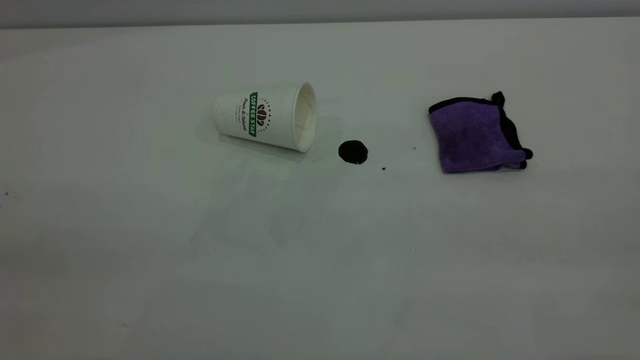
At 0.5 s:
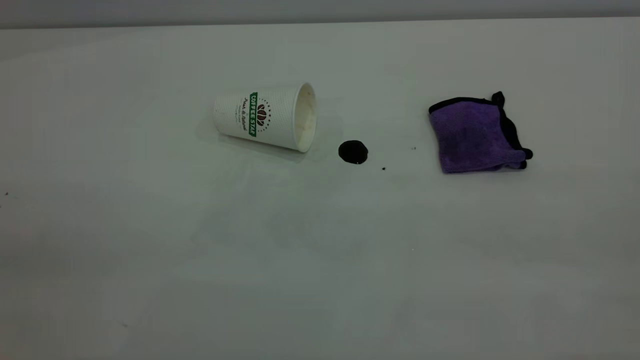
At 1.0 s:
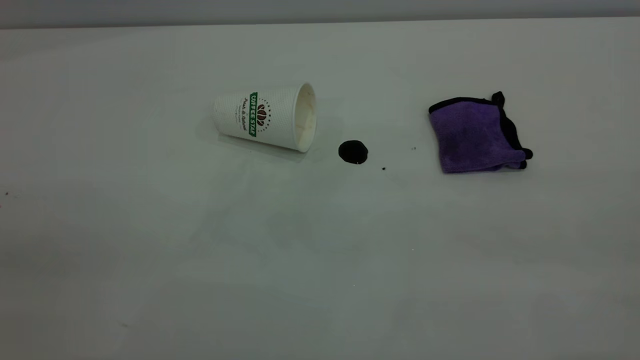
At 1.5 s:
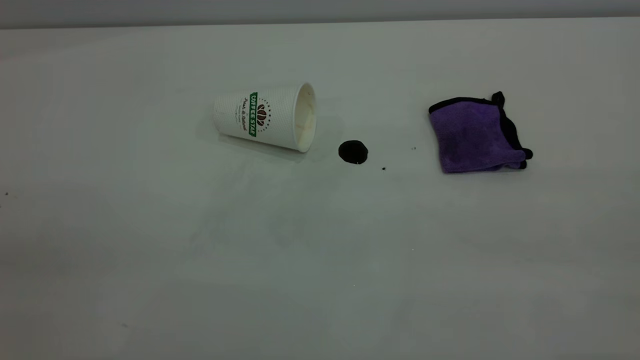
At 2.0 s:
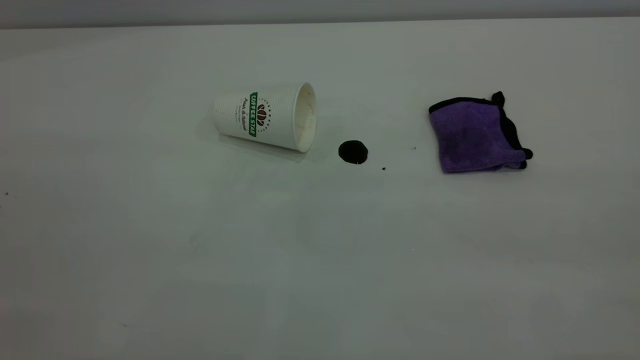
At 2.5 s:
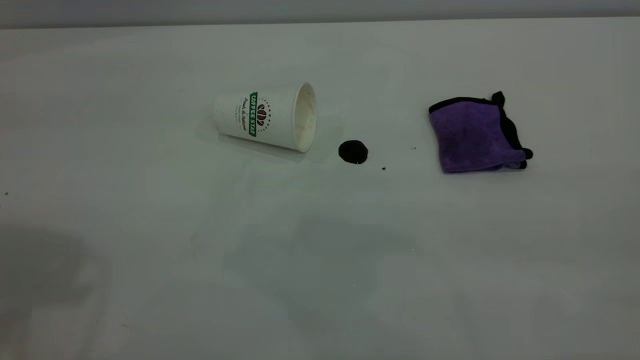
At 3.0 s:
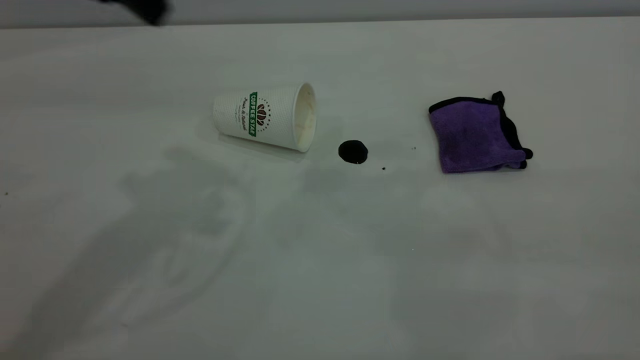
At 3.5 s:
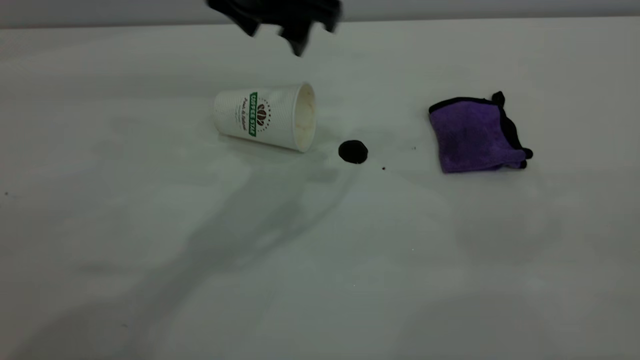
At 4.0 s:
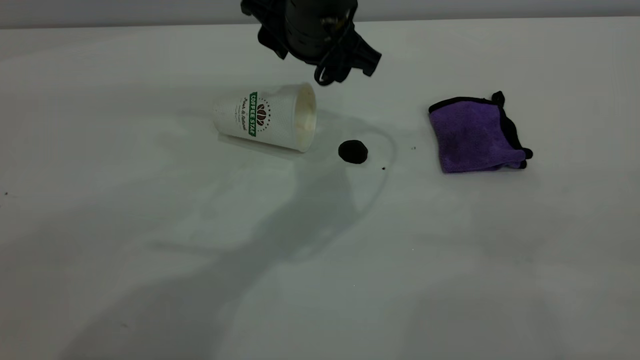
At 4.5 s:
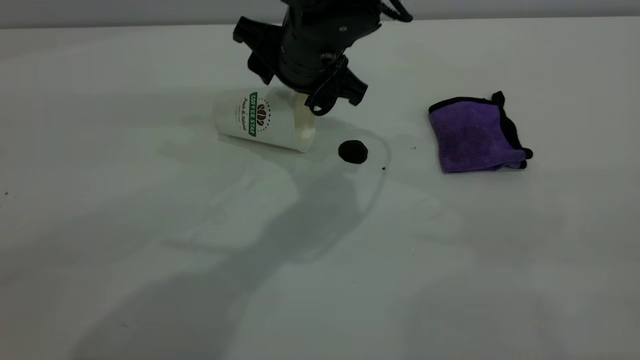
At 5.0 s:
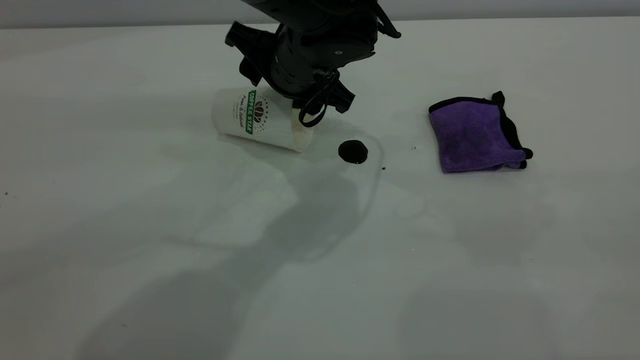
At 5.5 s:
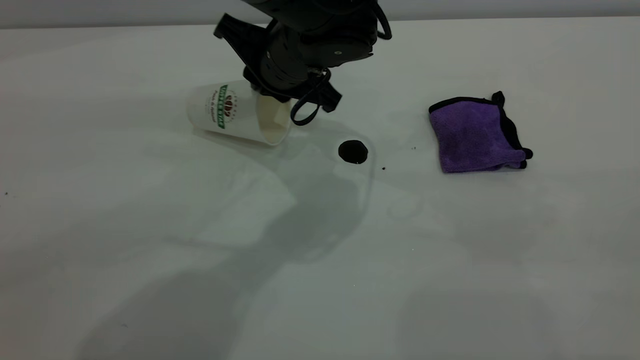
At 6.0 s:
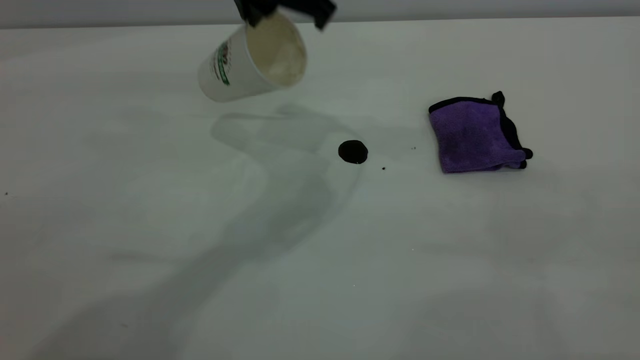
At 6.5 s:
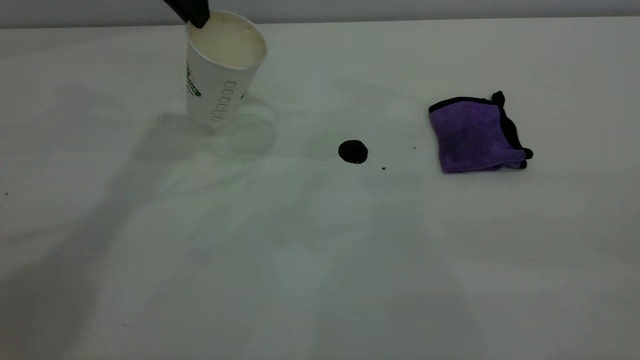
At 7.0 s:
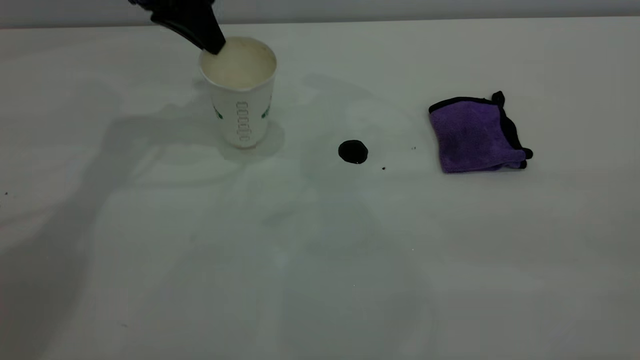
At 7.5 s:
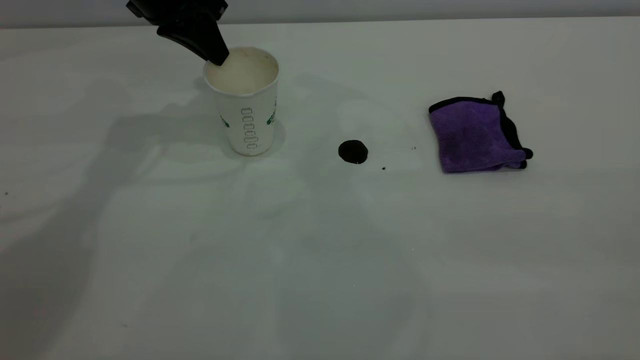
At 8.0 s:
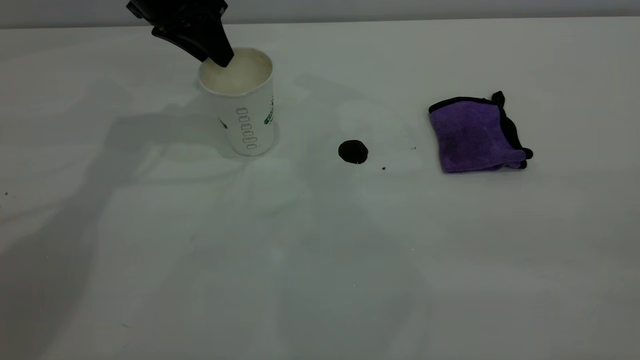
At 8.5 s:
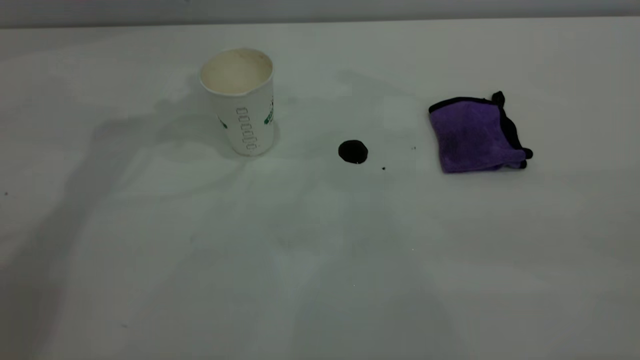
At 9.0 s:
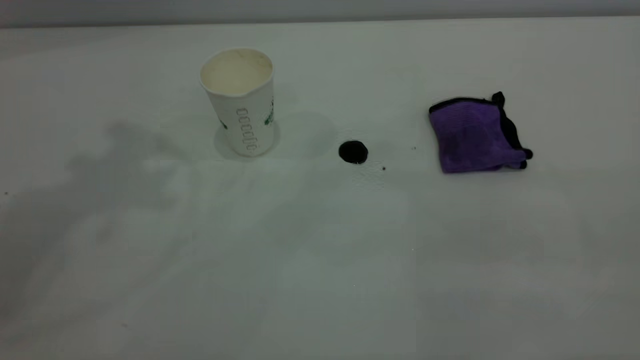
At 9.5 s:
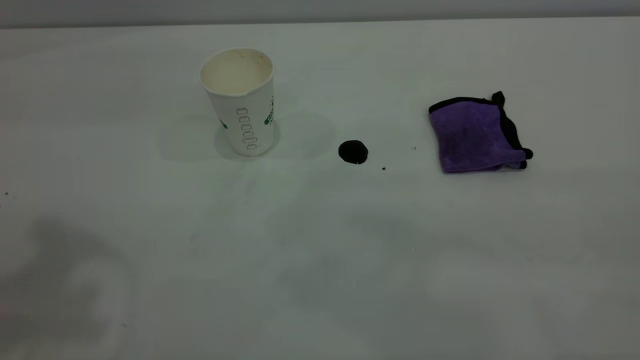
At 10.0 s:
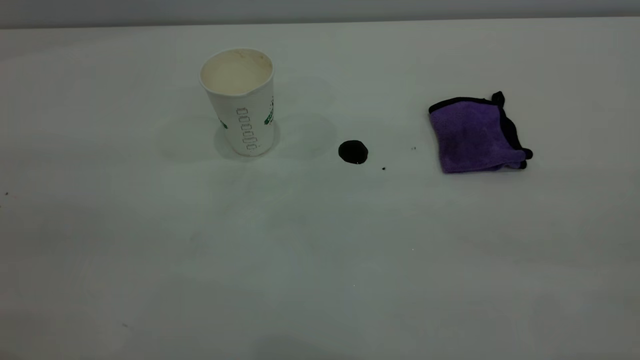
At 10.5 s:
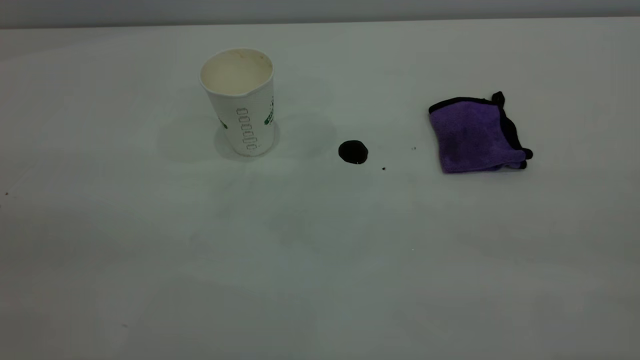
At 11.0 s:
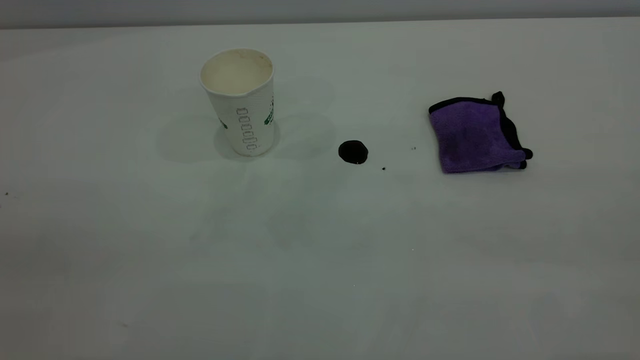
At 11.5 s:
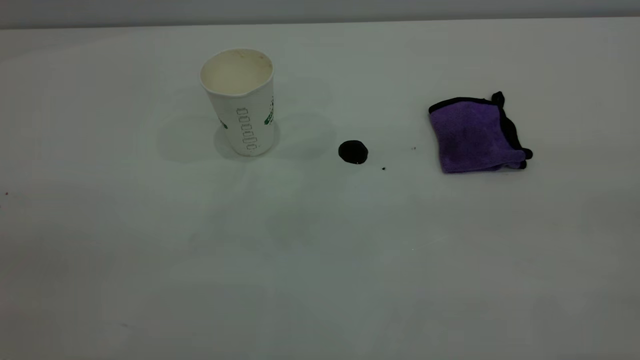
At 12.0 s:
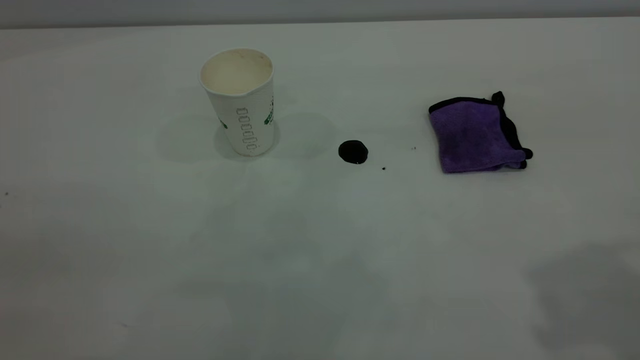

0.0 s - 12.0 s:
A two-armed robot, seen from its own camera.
Task of the whole recording: the left gripper pick up the fallen cup and place it upright, the right gripper grasp the purple rag and wipe the coffee stain on the table, the right gripper put the purple rag back in its original position.
Step, 0.0 s - 8.0 s: Stand the paper cup upright.
2.0 s - 4.0 s: The left gripper shifts about 50 cm forward, to the right and downward.
4.0 s - 6.0 s: The left gripper travels upward by roughly 10 cm, and closes up.
6.0 s - 8.0 s: The left gripper moves to the left and forward, roughly 15 cm, and opens up.
8.0 s - 10.0 s: The left gripper moves backward and upward, some 40 cm, and opens up.

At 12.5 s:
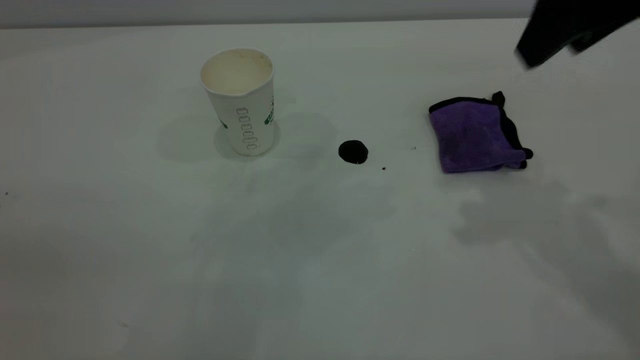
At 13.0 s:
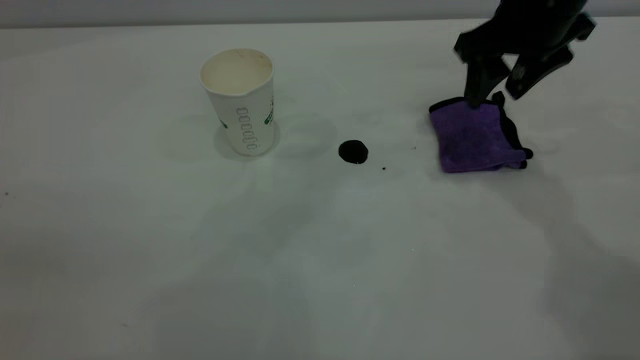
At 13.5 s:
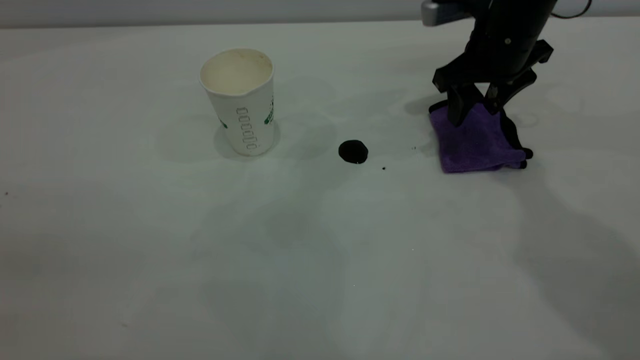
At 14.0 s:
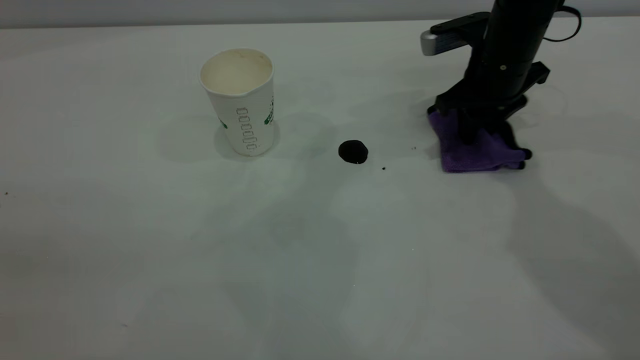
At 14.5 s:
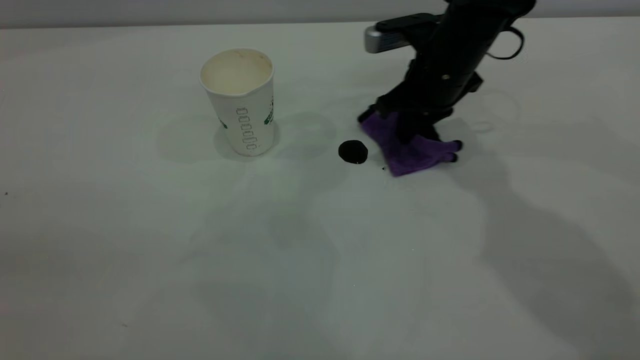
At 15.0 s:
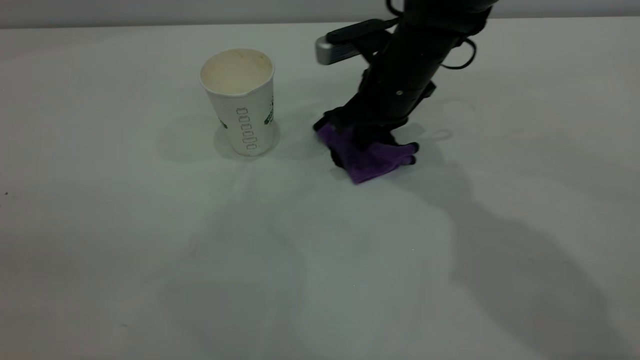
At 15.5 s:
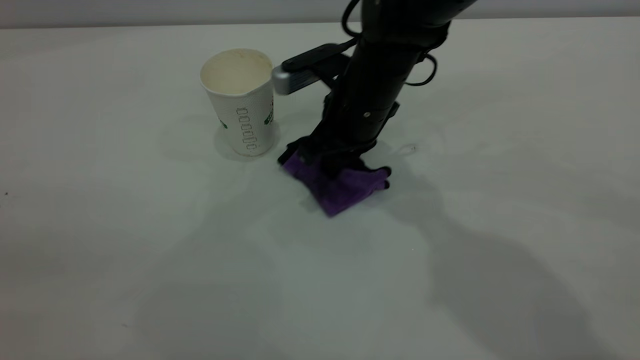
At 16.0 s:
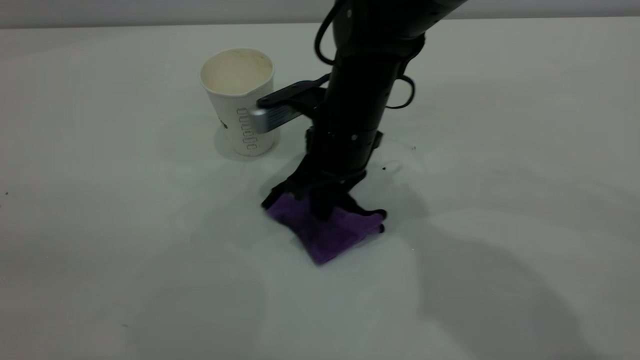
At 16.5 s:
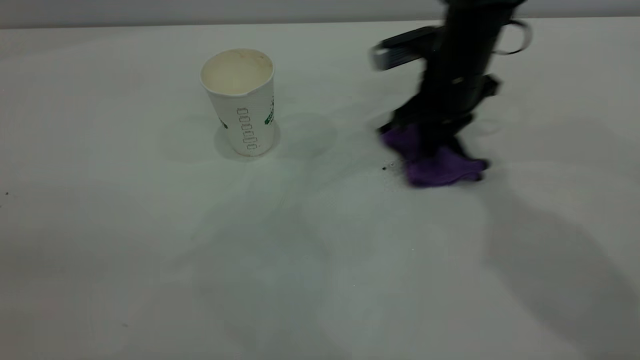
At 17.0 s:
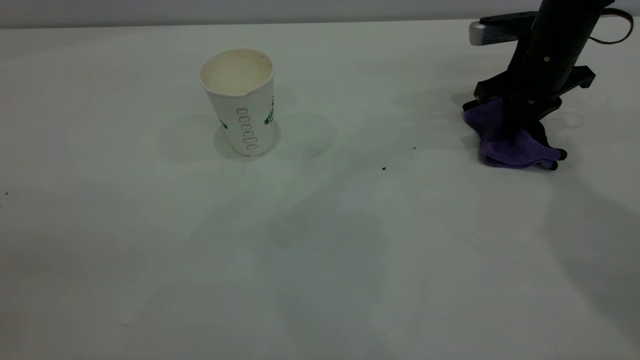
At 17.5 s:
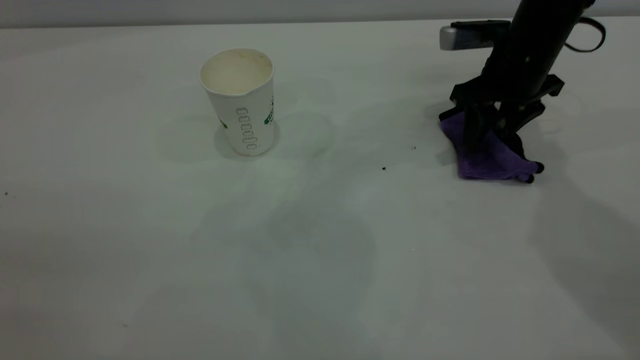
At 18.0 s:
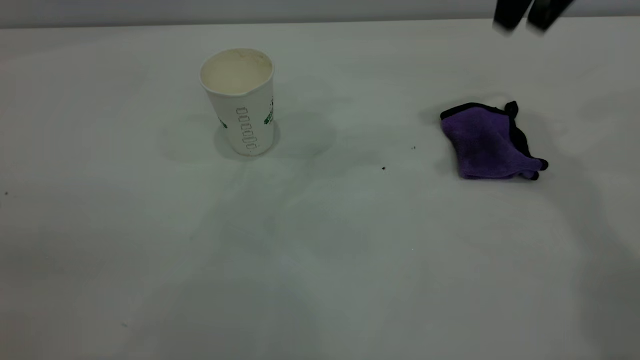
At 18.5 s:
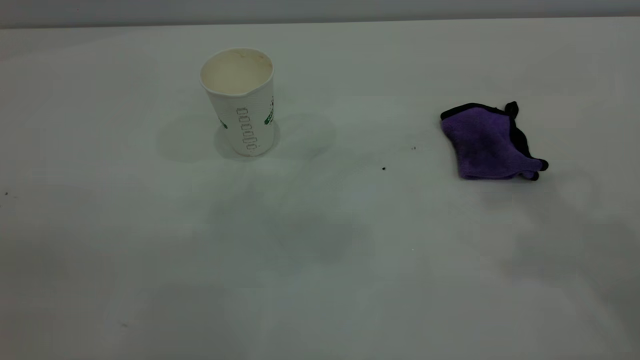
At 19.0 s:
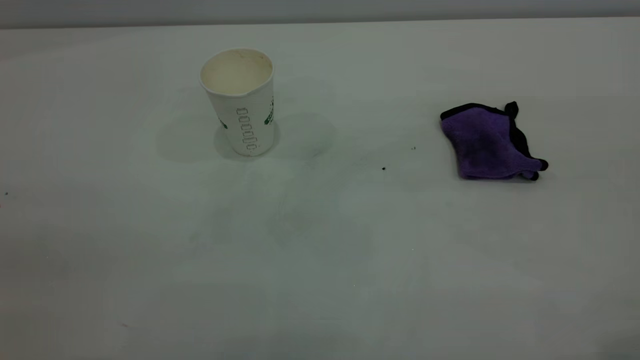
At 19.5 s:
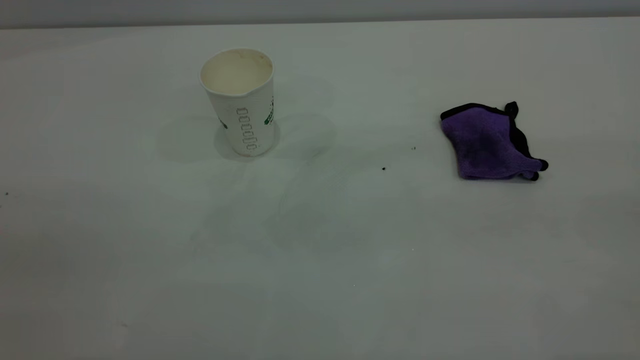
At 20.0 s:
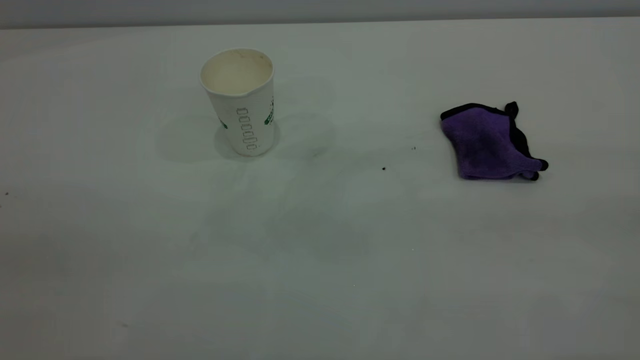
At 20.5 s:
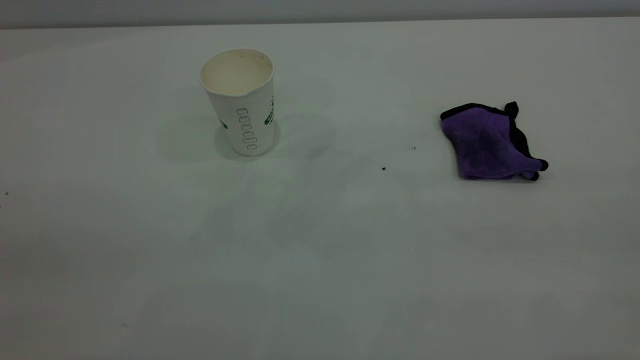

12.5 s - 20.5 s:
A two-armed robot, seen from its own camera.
Task of the whole recording: the left gripper pick up the fallen cup and place it upright, the right gripper grasp the purple rag and wipe the coffee stain on the table, the right gripper put the purple rag back in its original position.
Step, 12.5 s - 17.5 s: Wipe the stains off the table with a rag.
12.5 s - 14.5 s: The right gripper goes approximately 25 cm downward, forward and to the left, and closes.
14.5 s - 16.5 s: The right gripper goes to the left and returns, about 10 cm each way.
16.5 s - 18.5 s: The right gripper moves upward and backward, about 40 cm, and opens its fingers.
